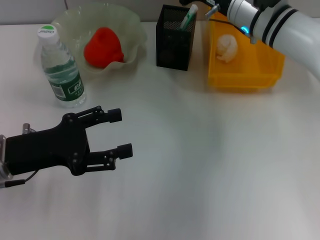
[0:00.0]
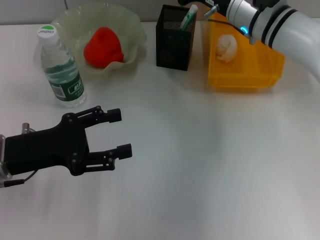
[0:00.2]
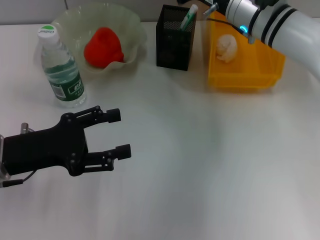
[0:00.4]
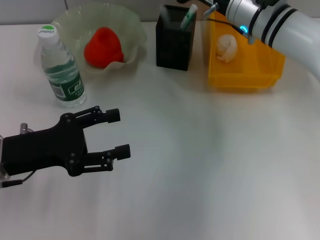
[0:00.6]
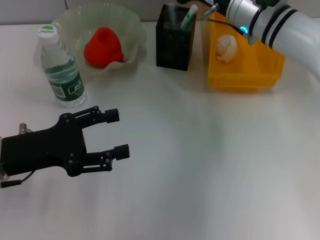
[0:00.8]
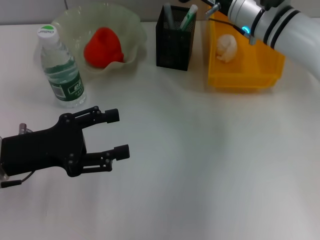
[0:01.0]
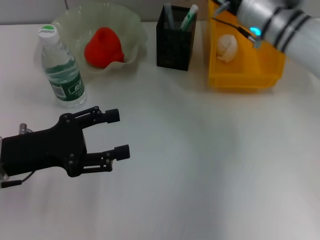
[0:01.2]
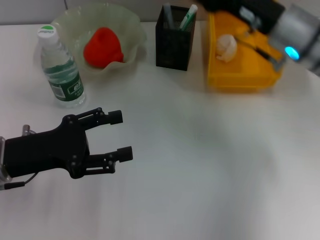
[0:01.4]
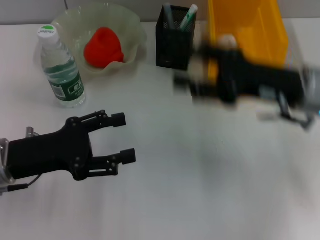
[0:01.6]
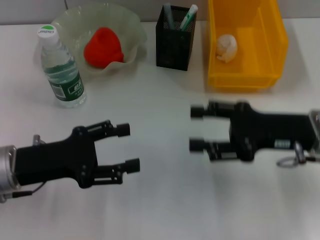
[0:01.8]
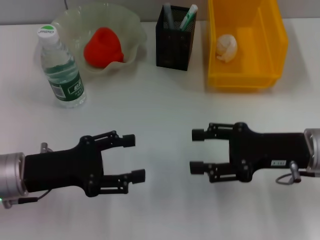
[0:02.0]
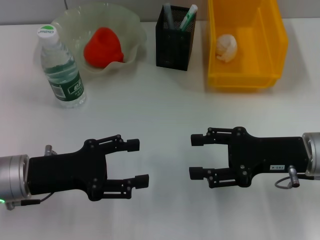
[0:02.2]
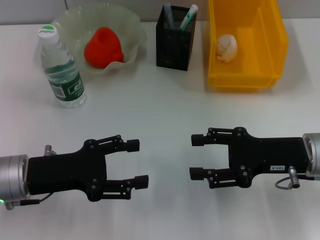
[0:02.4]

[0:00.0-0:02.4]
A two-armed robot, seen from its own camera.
0:00.0 to 0:01.2: The right gripper opens.
0:01.2 to 0:02.4: The right gripper is displaced backward, to the right and downward by some 20 cm.
